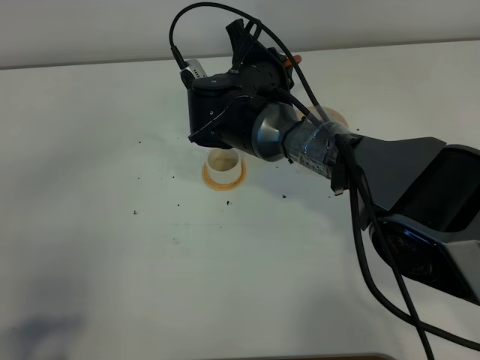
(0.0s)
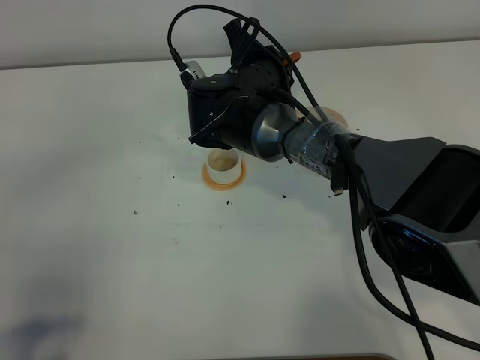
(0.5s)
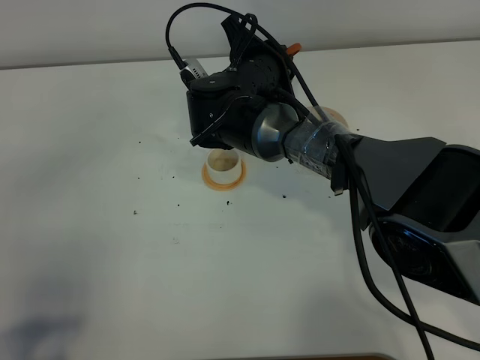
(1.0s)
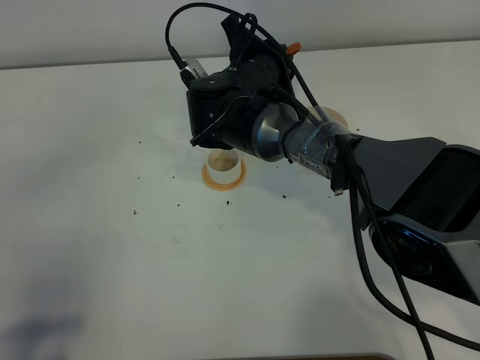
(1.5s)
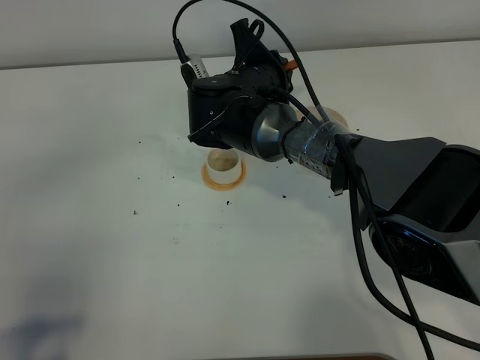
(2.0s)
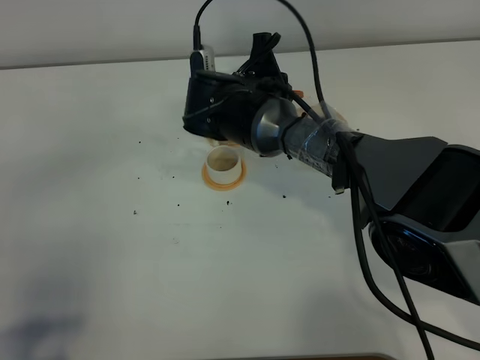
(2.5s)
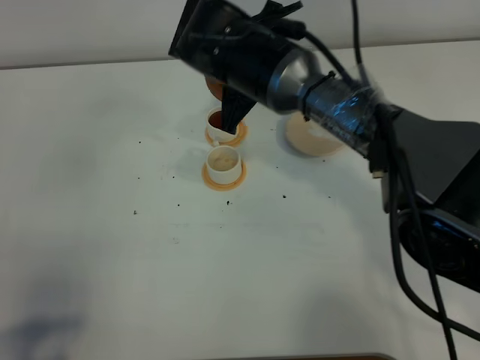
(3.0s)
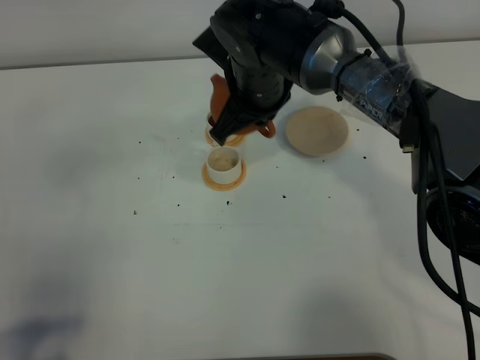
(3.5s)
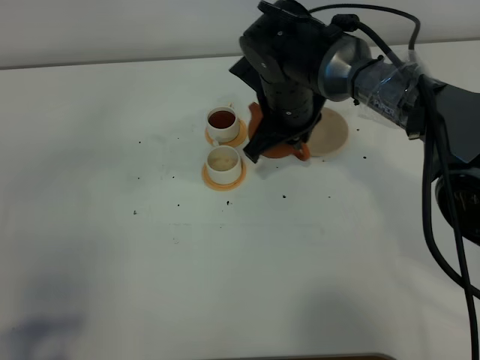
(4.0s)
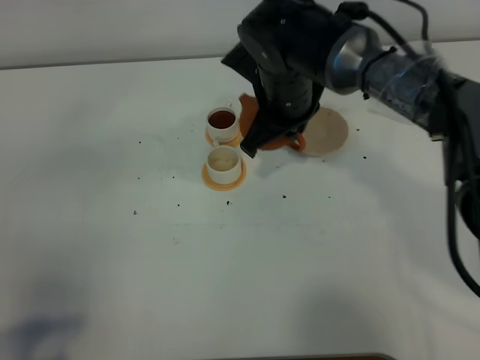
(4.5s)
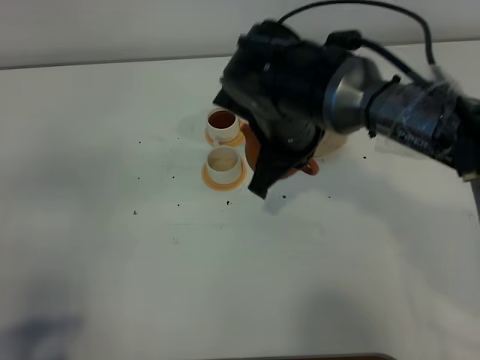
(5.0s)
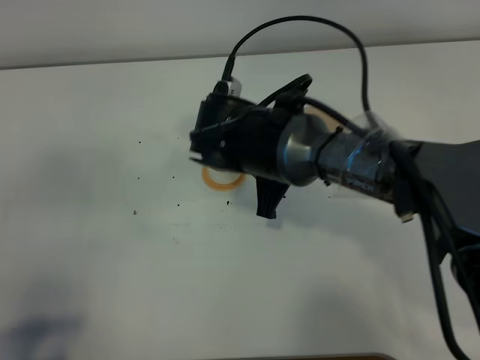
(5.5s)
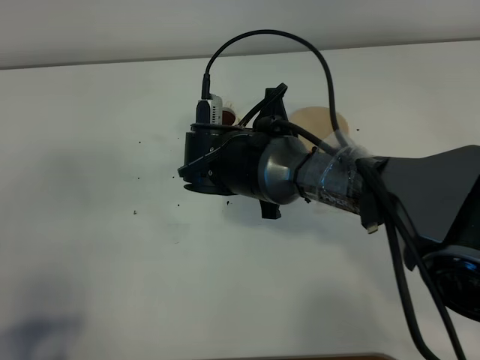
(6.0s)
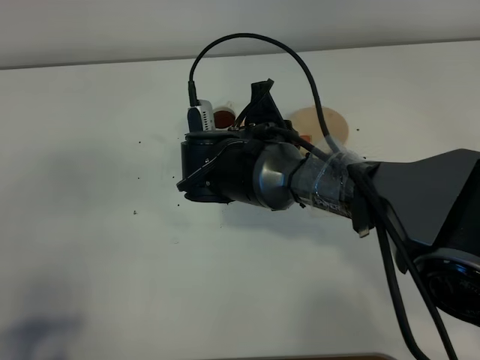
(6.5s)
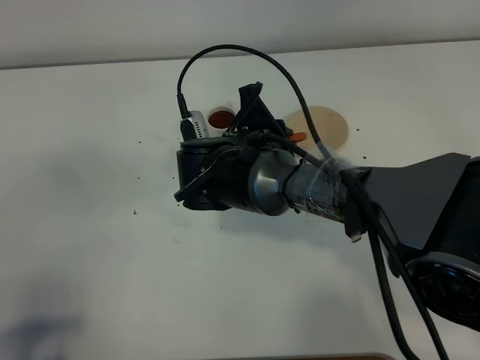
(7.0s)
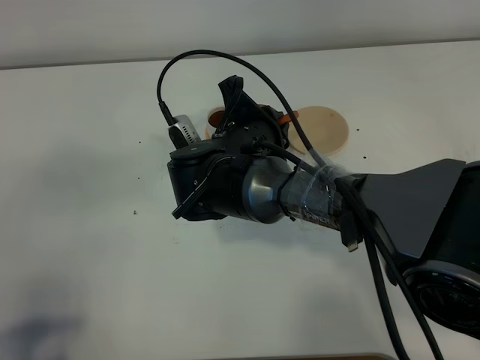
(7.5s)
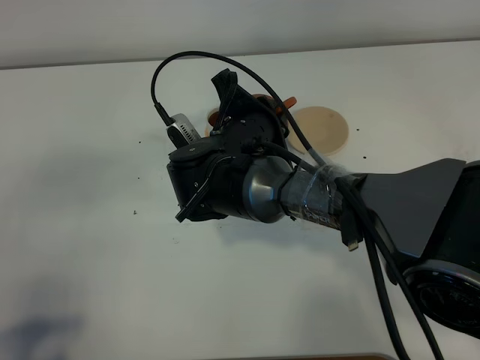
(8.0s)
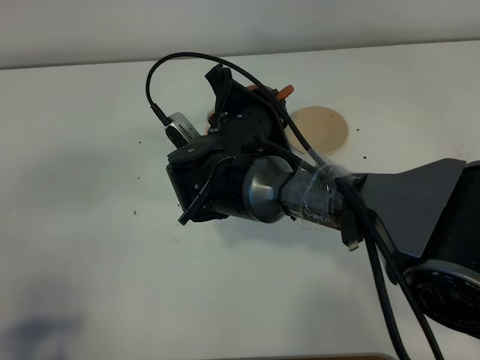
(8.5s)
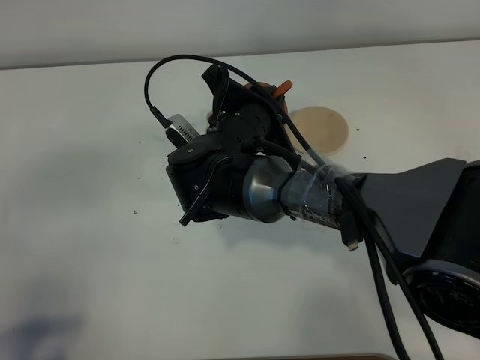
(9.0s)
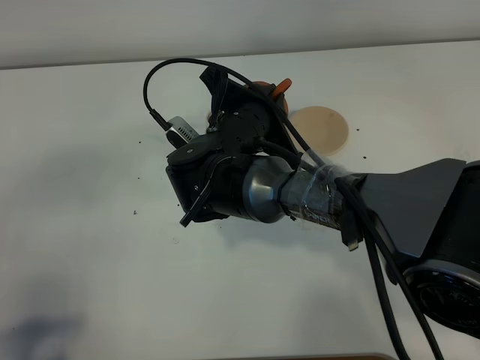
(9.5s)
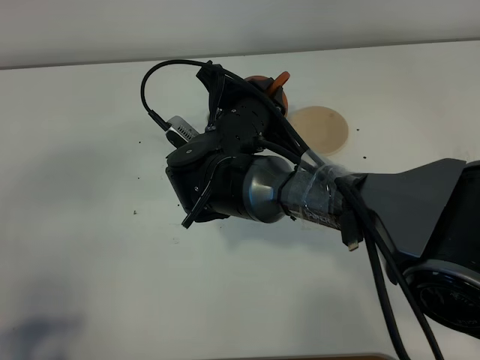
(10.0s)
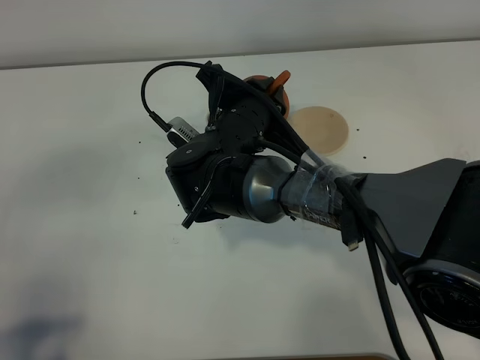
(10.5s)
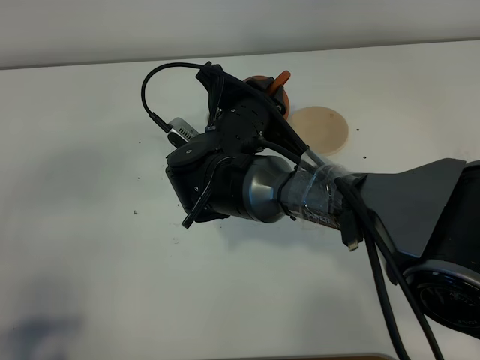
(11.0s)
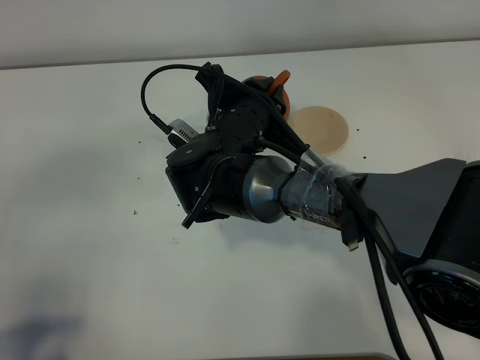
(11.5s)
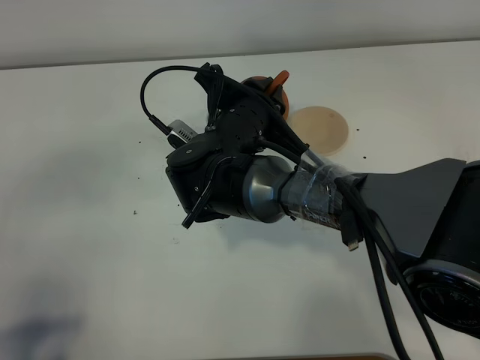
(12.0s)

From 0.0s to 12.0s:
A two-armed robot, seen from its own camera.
Task of the whole recording: grasp the brown teapot and pour the tea into the two white teacups one by one, put the brown teapot back in its original place.
Step, from 0.0s to 4.0s: Pour tea into the teacup with the right gripper.
From 0.0s to 2.0s: The grippers make only small movements.
From 2.0s to 4.0s: The right gripper shifts about 5 cm to the right.
From 4.0s to 6.0s: The right gripper shifts roughly 10 cm backward.
From 8.0s to 10.0s: The grippers make only small movements.
From 10.0s to 12.0s: Both grippers stay about where they are.

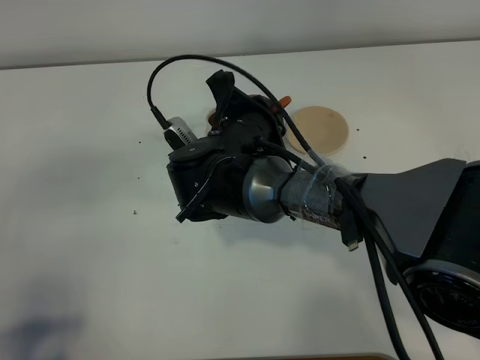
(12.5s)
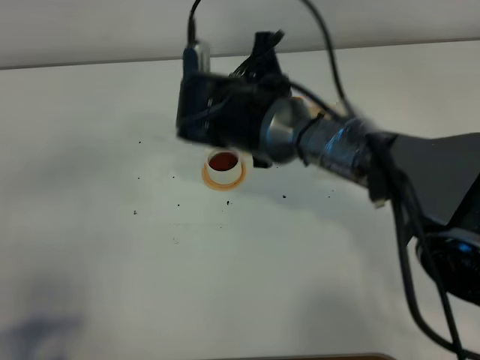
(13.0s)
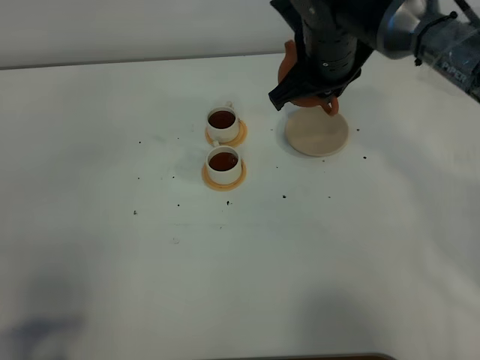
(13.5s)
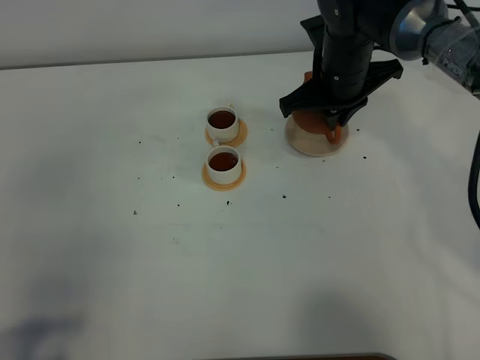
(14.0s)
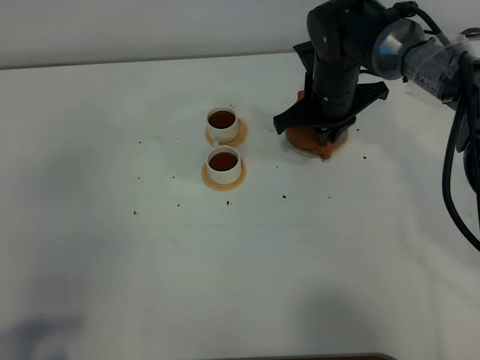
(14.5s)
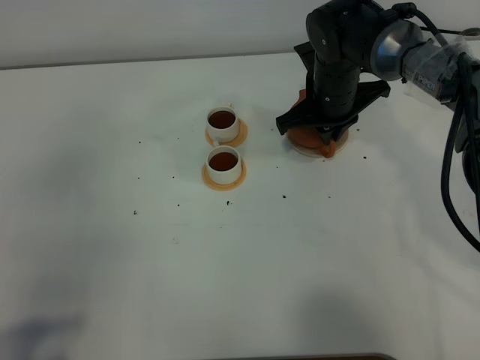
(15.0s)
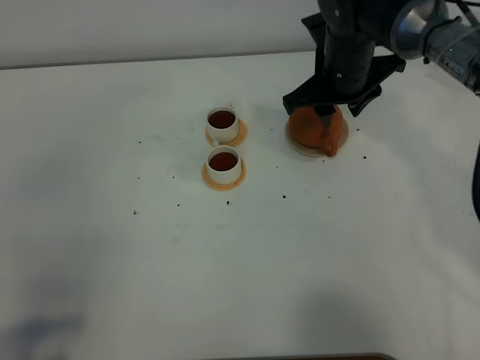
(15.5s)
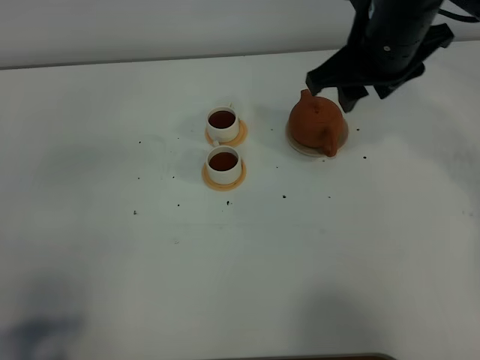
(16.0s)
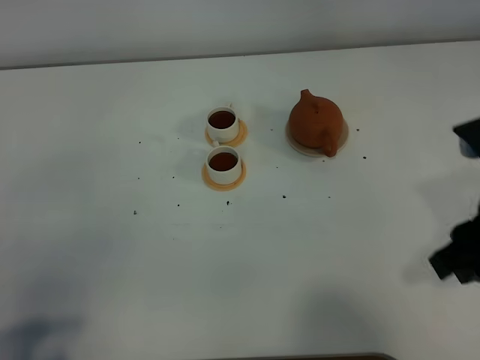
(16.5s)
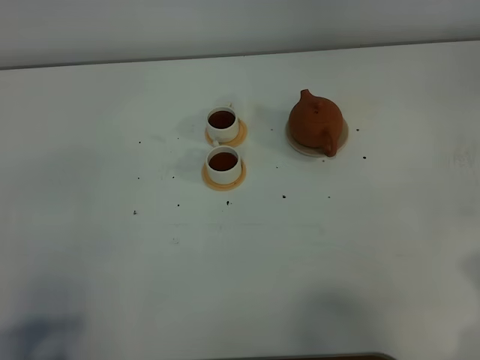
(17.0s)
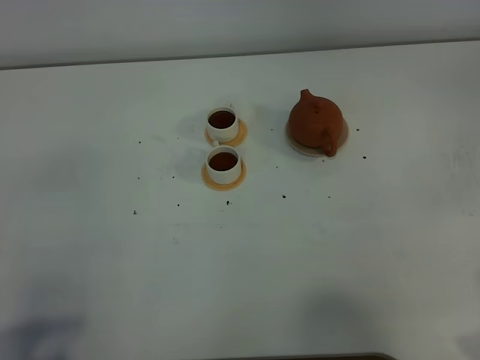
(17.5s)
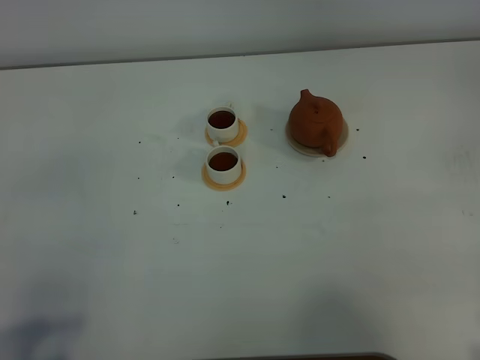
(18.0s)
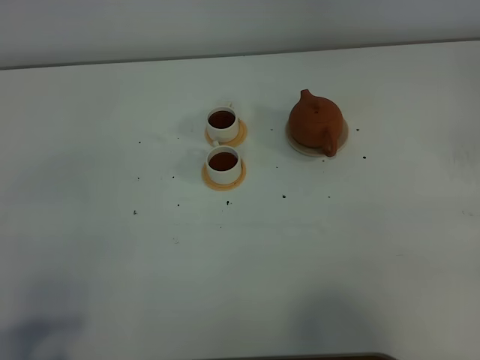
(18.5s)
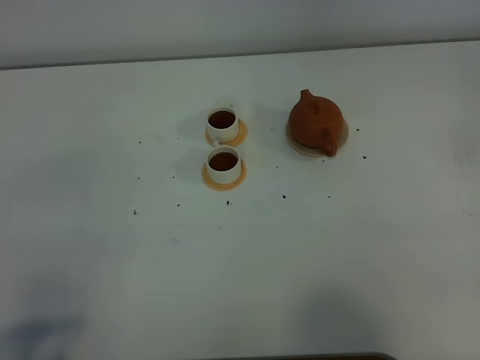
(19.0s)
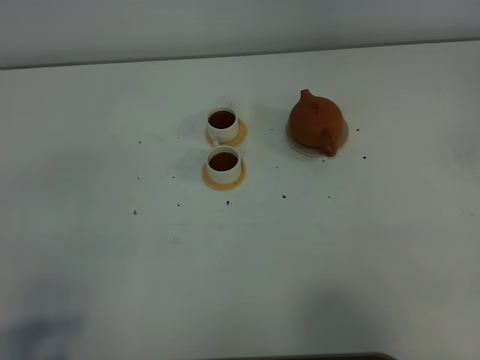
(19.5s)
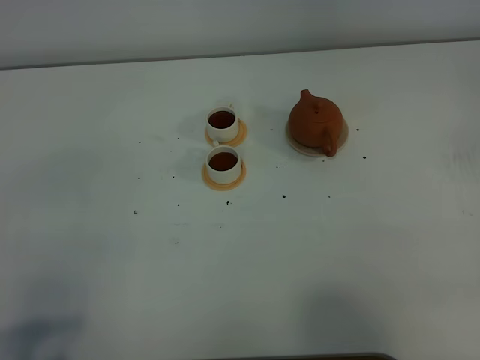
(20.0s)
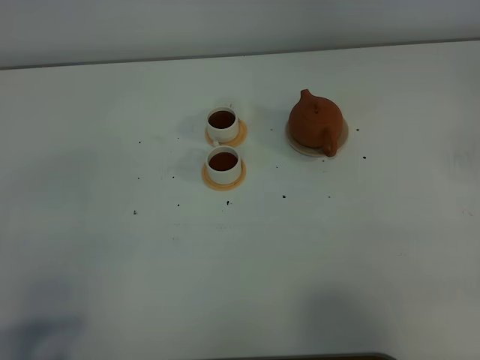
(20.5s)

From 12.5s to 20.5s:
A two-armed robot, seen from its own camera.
Task of the whole recording: grasp the brown teapot and pour the tea into the two white teacups one by one, put the brown teapot back in its original place.
From 12.5s to 14.5s: The right gripper moves forward and to the right, about 15 cm.
From 14.5s to 16.5s: The right gripper heads backward, to the right and upward, covering some 30 cm, and opens up.
From 16.5s to 18.5s: The right gripper heads backward and to the right, covering about 15 cm.

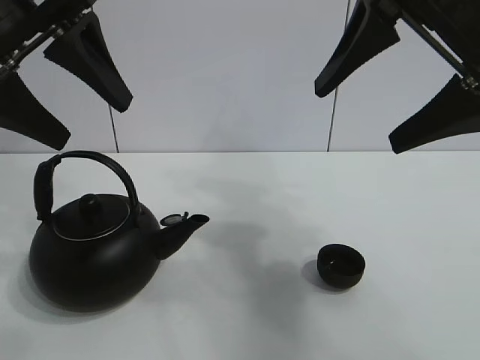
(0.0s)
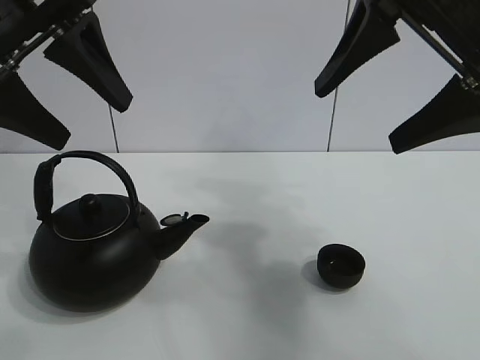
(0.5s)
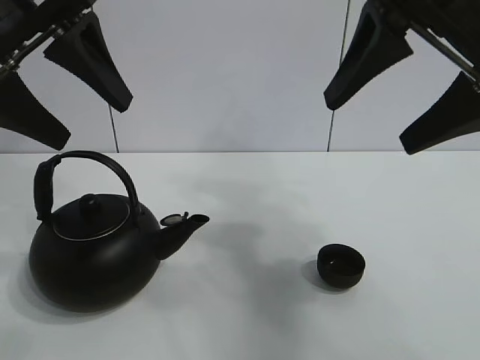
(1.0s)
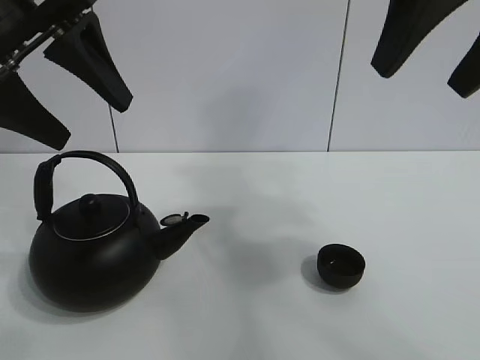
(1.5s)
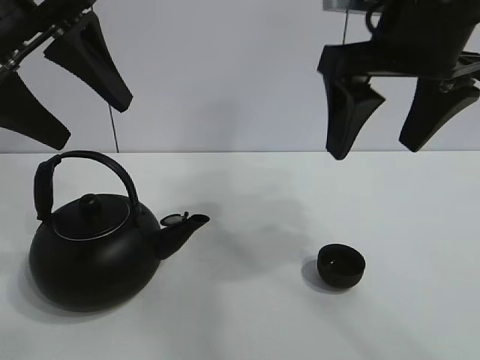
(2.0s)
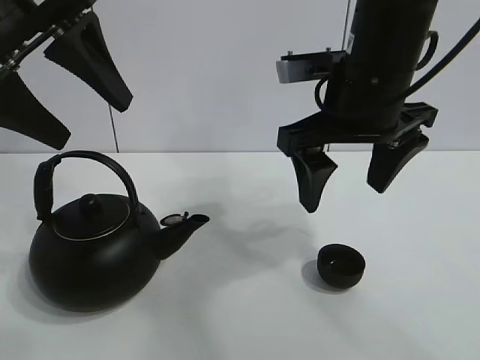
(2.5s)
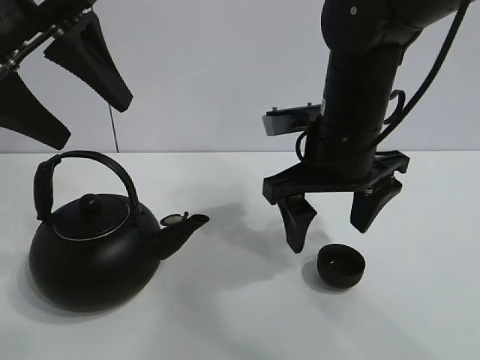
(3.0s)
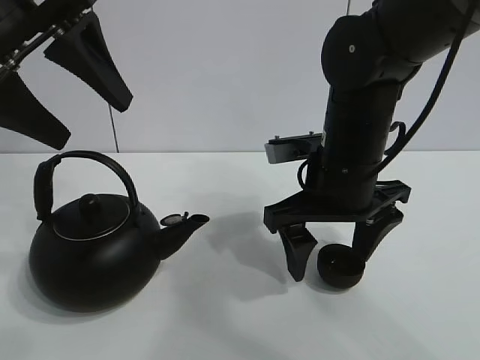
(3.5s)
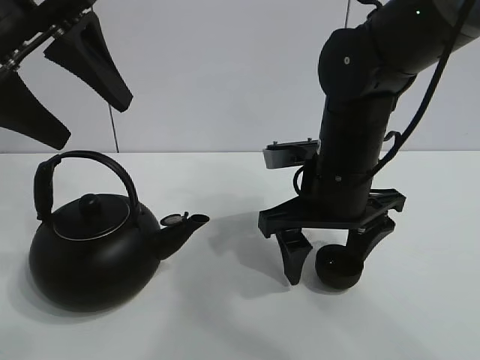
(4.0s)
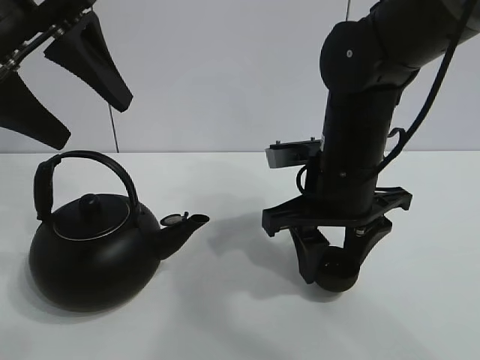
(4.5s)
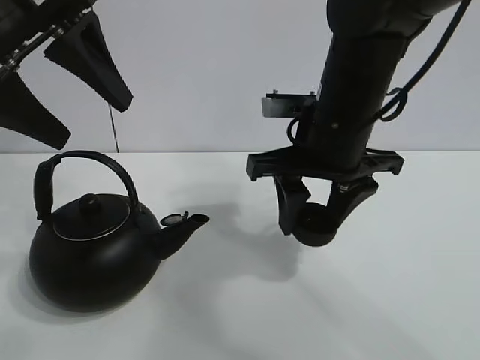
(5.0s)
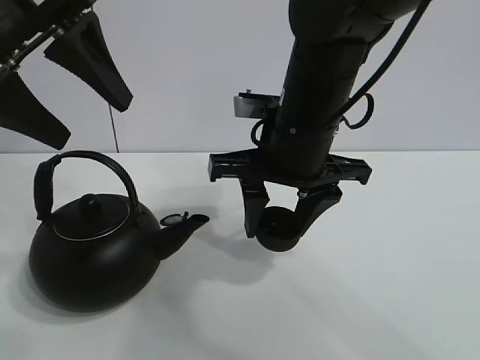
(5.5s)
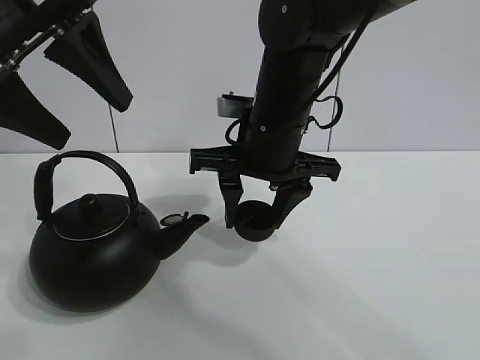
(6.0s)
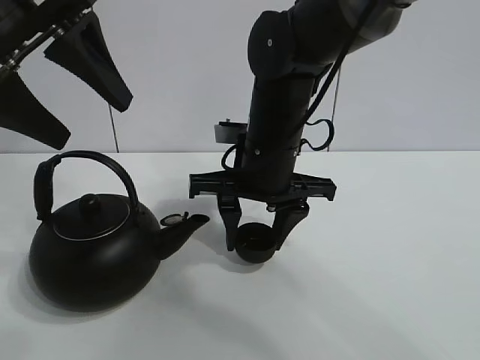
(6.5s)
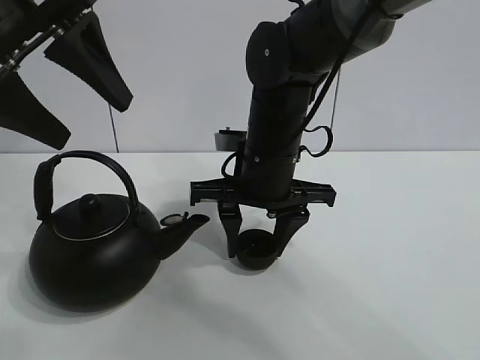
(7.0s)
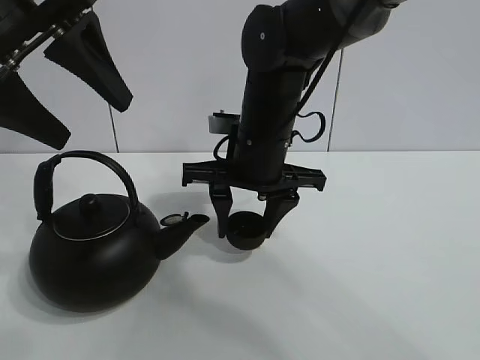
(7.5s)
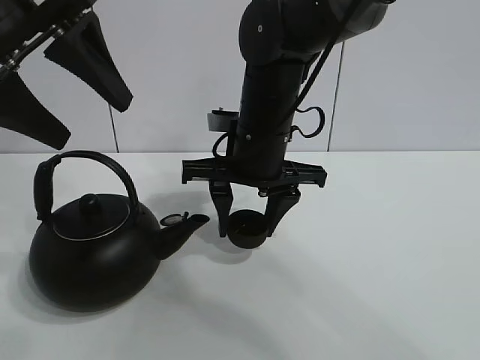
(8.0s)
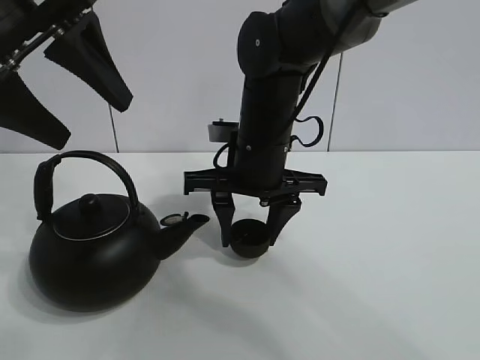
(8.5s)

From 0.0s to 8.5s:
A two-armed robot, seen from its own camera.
Task of the whole recording: pour tea into the teacup.
Step, from 0.0s to 4.5s: Pick up the teacup with the right gripper.
From 2.0s to 4.0s: The right gripper moves downward, about 15 cm.
From 4.0s to 6.5s: The right gripper moves to the left, approximately 5 cm, and closes its fingers.
From 6.5s to 8.5s: The grippers stay close to where they were, moving slightly.
